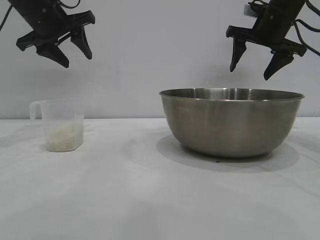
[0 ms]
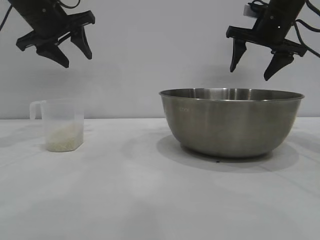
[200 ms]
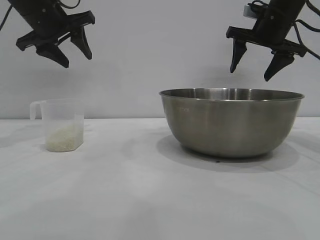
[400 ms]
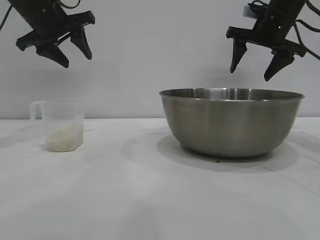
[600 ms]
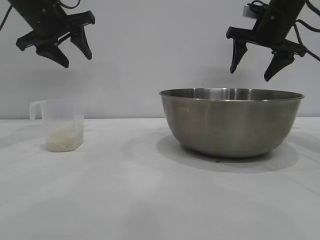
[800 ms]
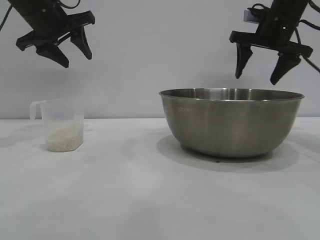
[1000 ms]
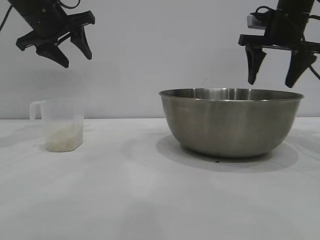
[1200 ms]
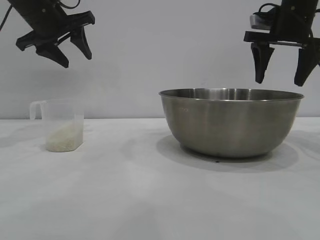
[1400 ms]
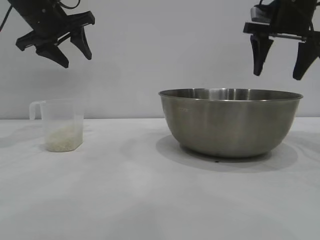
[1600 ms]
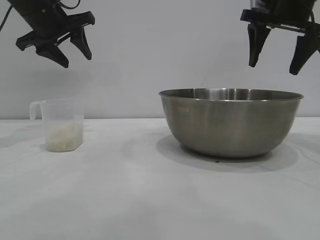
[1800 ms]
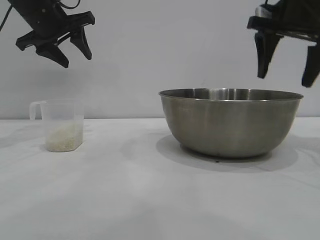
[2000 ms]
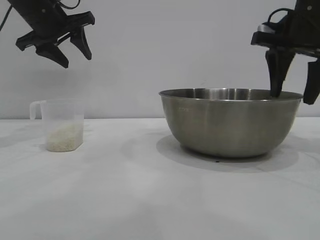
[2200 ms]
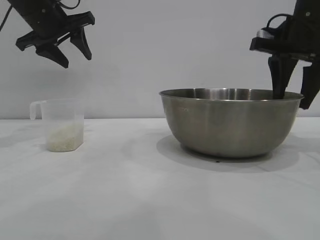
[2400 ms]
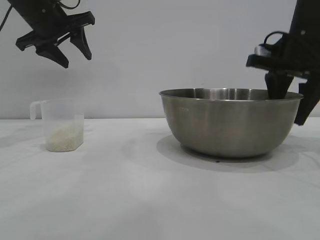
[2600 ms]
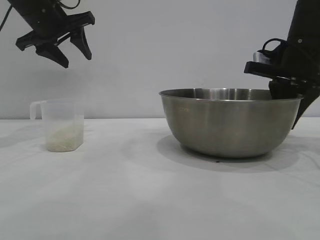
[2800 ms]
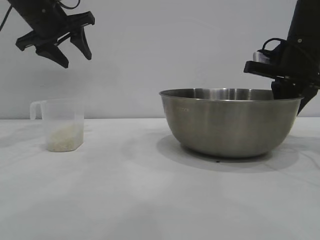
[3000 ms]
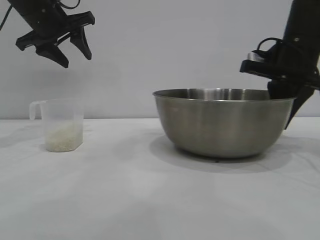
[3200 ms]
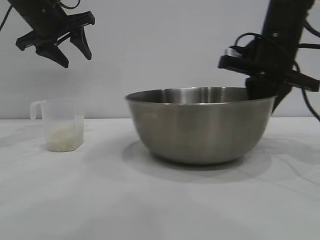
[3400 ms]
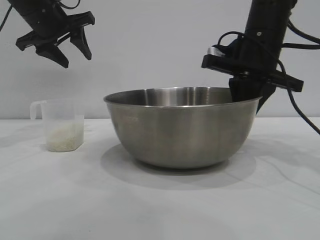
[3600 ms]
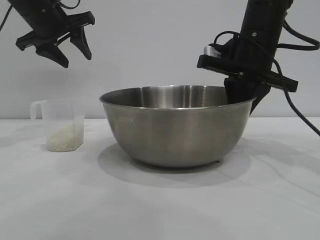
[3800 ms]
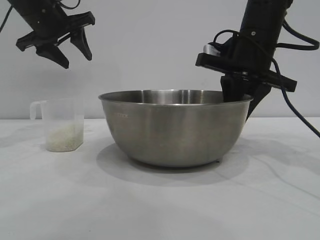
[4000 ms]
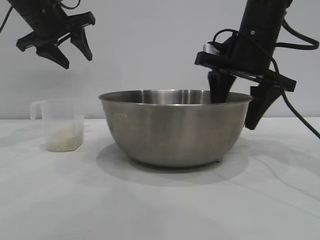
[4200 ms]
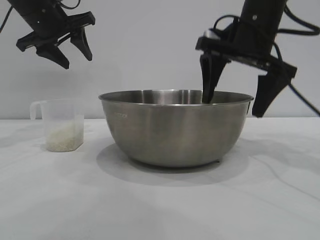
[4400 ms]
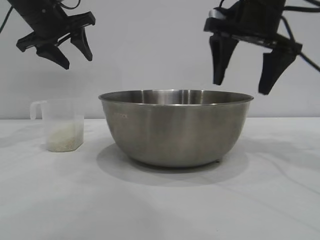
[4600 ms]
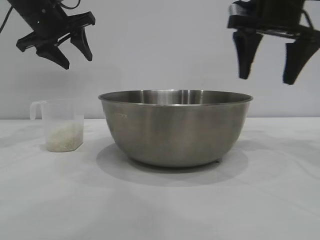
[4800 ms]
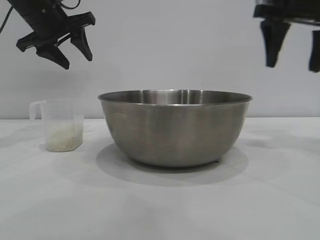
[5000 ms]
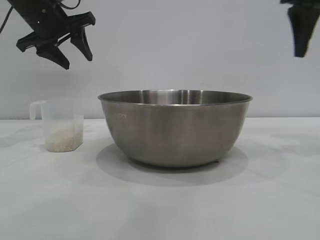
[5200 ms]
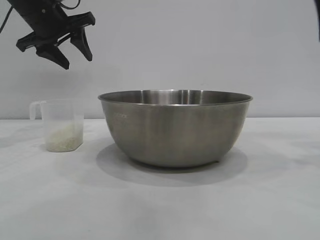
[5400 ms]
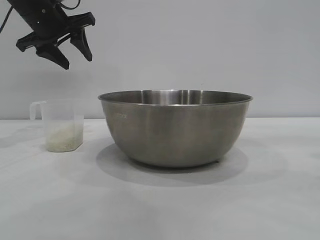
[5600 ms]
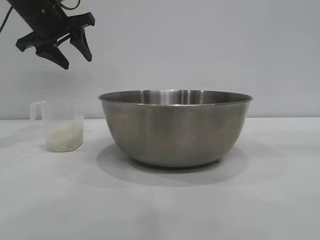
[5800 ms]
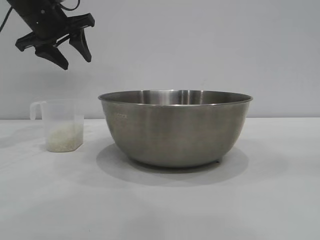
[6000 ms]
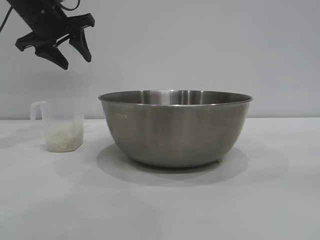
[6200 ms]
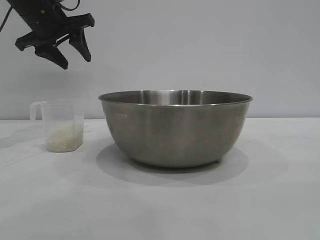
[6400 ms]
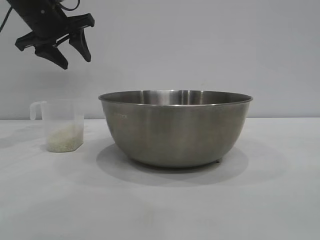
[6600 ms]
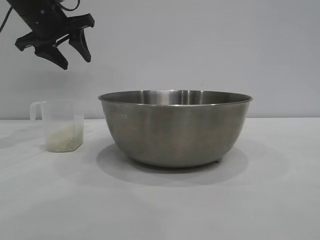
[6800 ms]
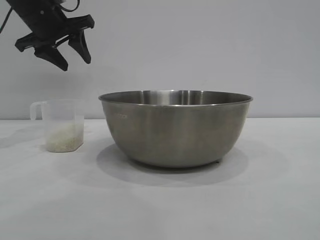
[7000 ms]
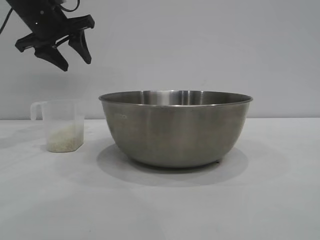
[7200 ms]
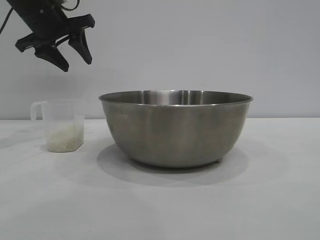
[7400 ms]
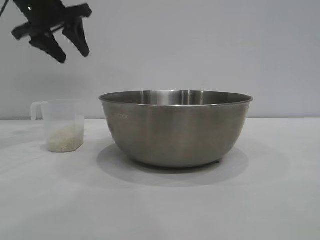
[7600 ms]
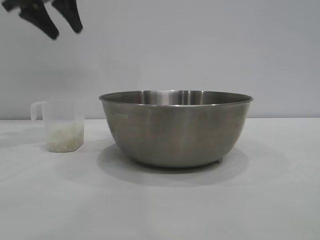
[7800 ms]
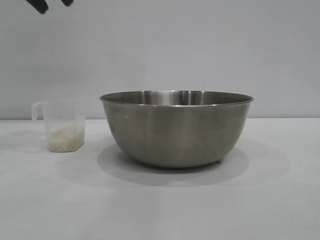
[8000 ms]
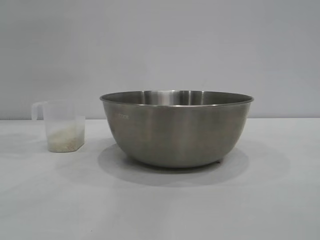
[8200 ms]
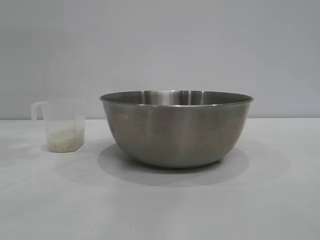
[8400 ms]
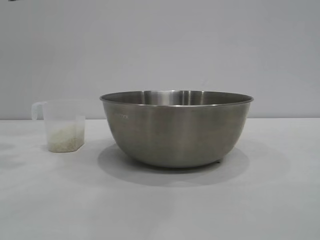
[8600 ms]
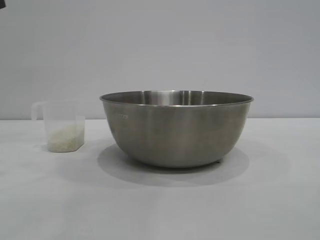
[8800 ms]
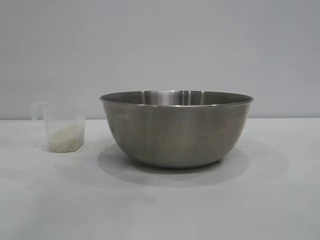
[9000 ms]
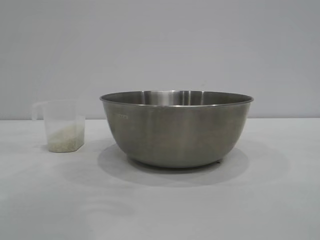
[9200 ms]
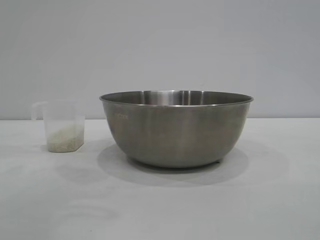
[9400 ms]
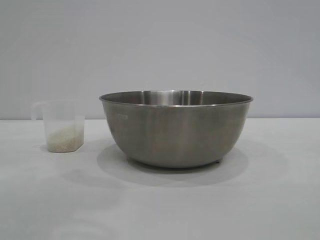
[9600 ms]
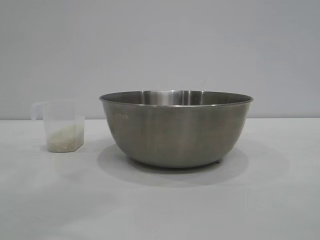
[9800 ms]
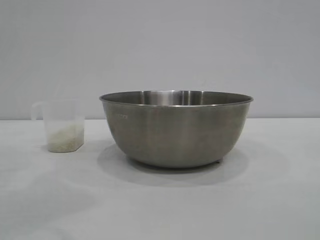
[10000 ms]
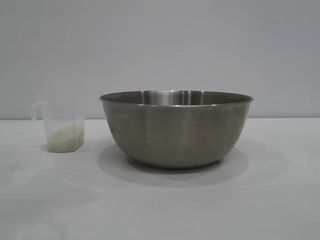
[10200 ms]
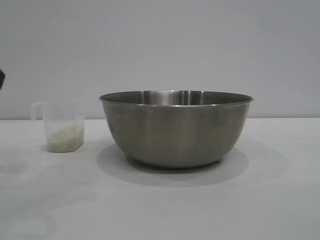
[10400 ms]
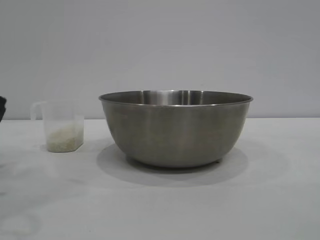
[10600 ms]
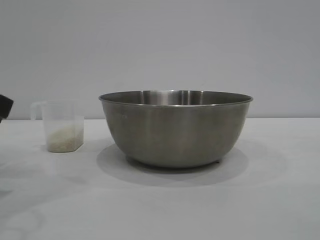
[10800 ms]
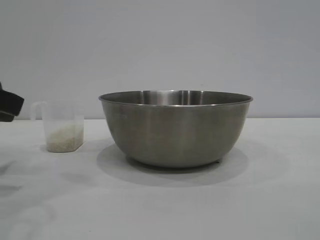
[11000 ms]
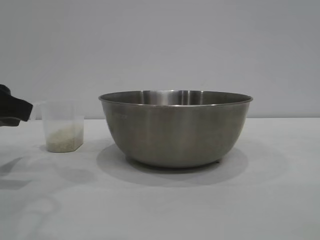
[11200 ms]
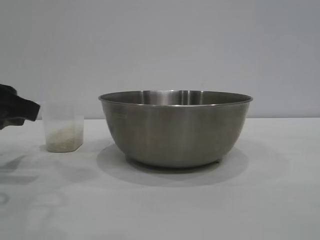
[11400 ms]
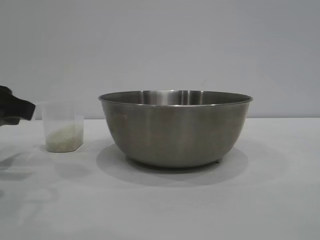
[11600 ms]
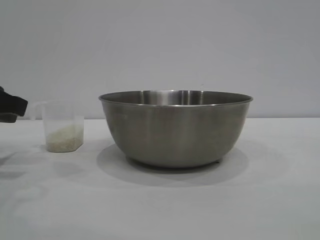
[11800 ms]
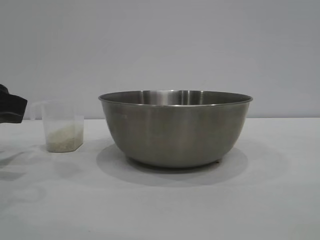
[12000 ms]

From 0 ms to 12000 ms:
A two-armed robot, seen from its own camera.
Task of the whole recording: the right gripper grasp the rice container and place it in the center of the table, the left gripper grasp the rice scoop and pour the rice into the rice container.
Step, from 0 ms to 4400 ms: Move the bowl to the center of view with the right gripper.

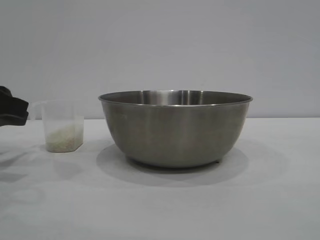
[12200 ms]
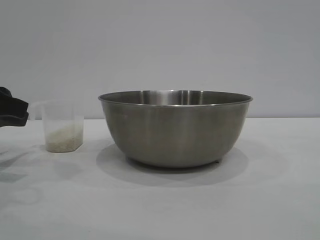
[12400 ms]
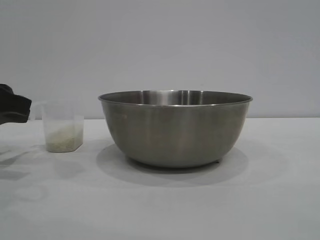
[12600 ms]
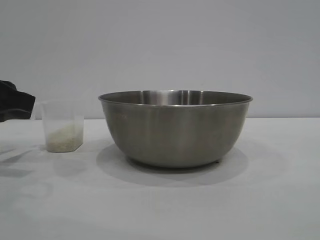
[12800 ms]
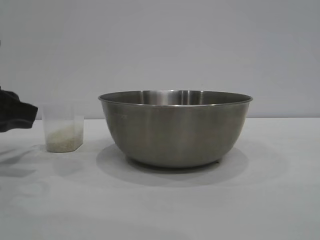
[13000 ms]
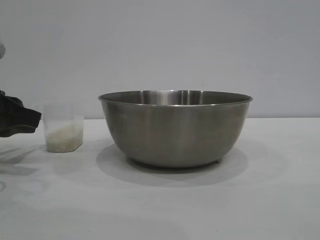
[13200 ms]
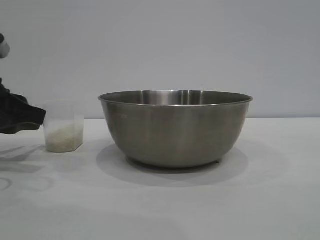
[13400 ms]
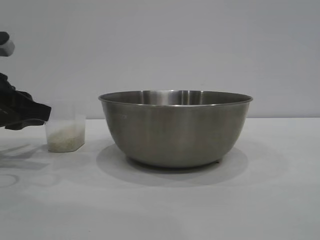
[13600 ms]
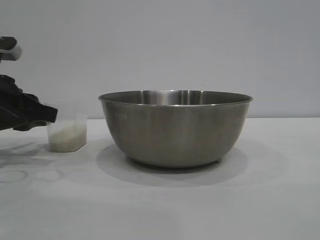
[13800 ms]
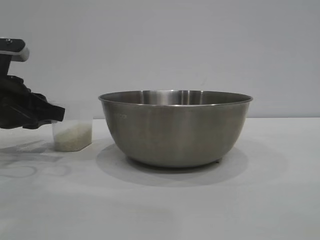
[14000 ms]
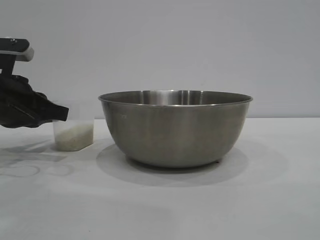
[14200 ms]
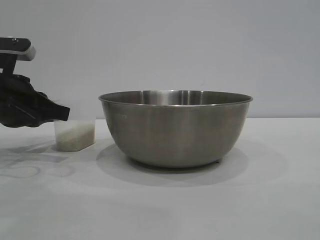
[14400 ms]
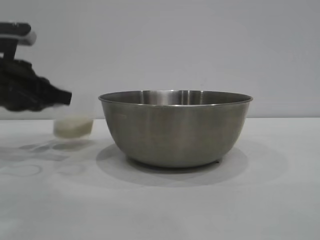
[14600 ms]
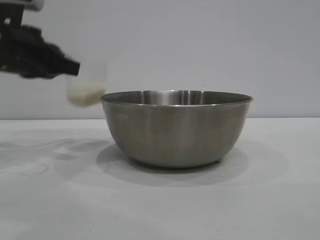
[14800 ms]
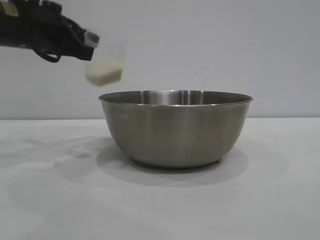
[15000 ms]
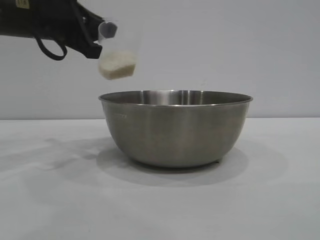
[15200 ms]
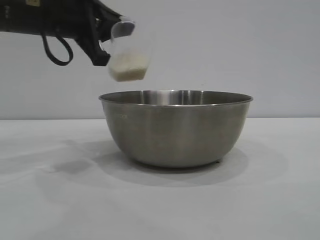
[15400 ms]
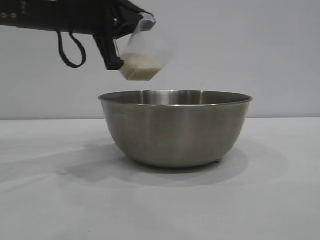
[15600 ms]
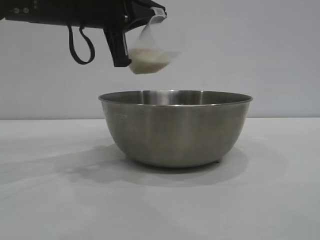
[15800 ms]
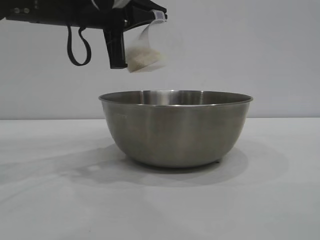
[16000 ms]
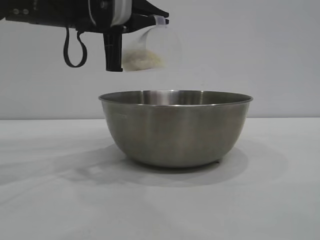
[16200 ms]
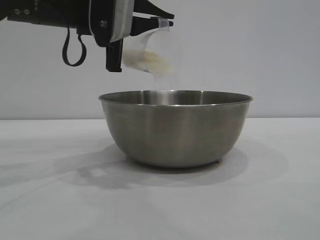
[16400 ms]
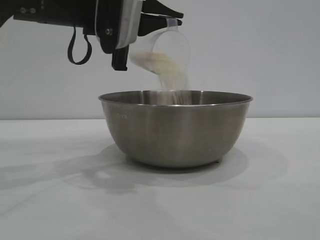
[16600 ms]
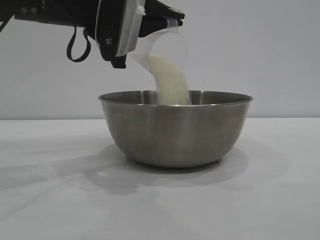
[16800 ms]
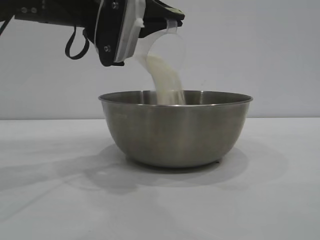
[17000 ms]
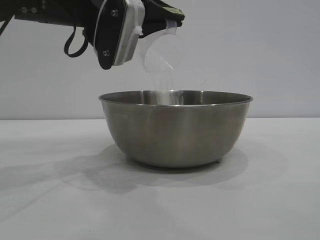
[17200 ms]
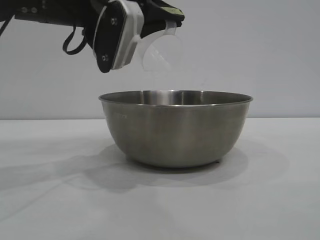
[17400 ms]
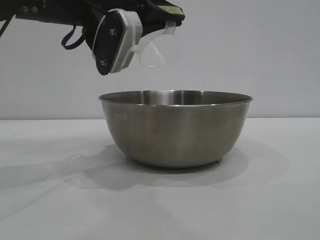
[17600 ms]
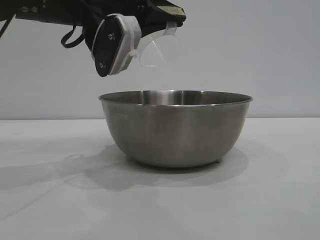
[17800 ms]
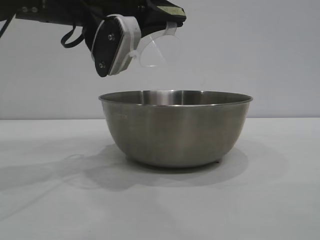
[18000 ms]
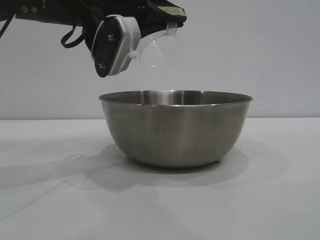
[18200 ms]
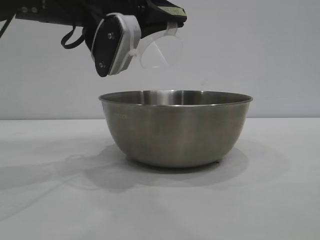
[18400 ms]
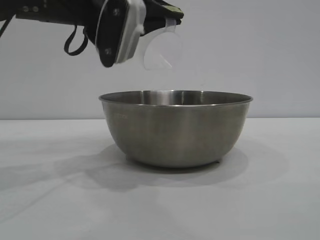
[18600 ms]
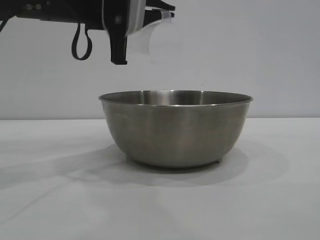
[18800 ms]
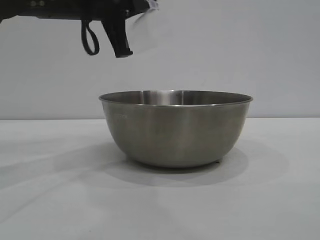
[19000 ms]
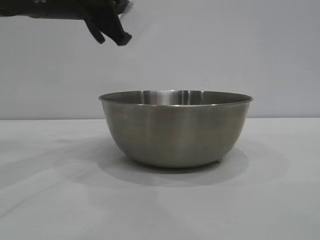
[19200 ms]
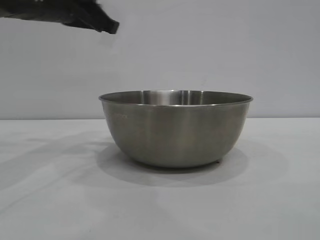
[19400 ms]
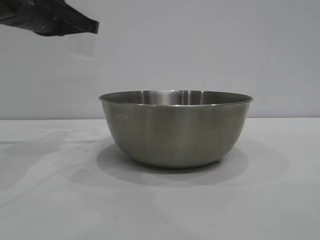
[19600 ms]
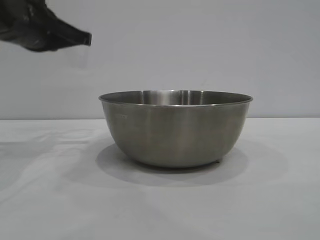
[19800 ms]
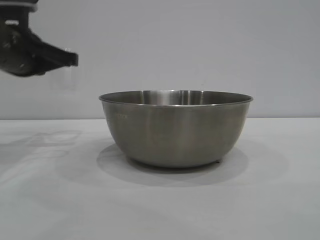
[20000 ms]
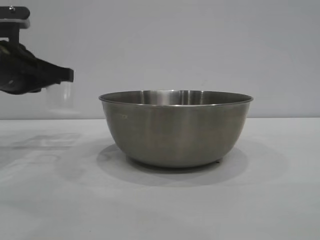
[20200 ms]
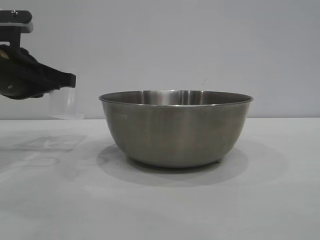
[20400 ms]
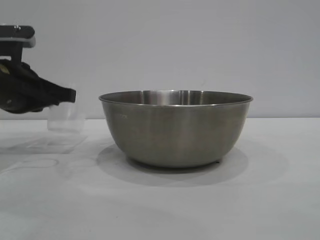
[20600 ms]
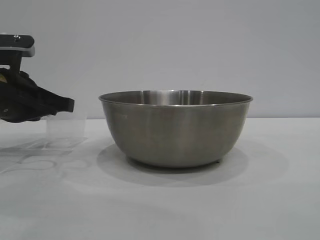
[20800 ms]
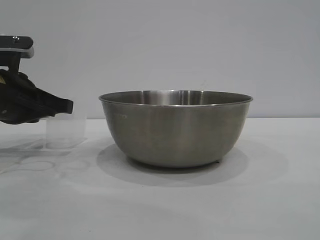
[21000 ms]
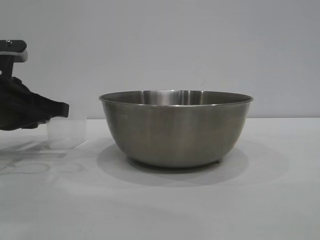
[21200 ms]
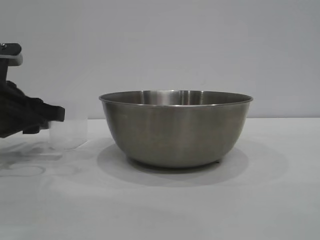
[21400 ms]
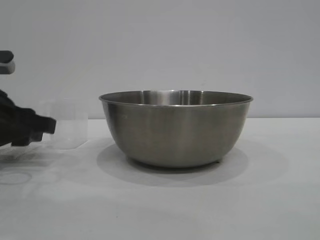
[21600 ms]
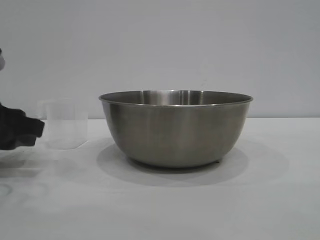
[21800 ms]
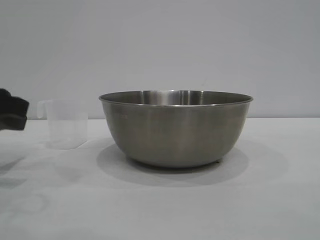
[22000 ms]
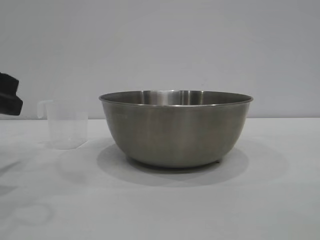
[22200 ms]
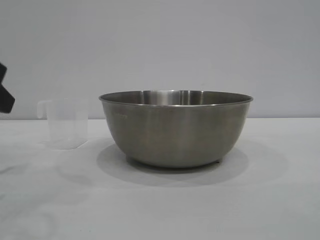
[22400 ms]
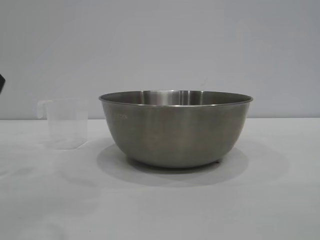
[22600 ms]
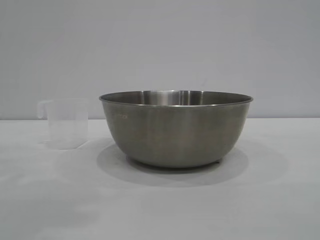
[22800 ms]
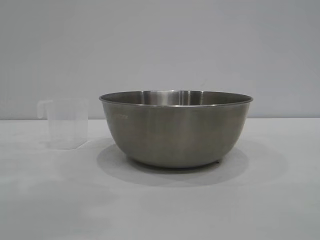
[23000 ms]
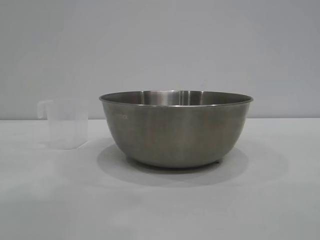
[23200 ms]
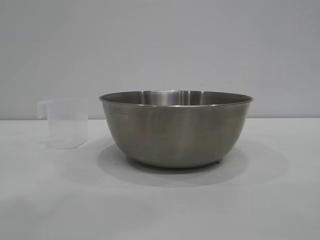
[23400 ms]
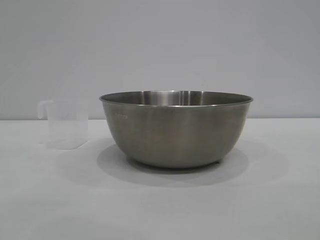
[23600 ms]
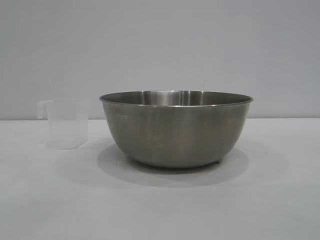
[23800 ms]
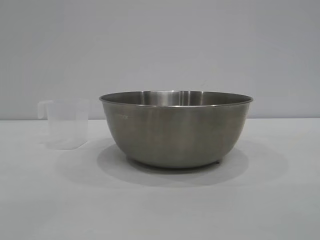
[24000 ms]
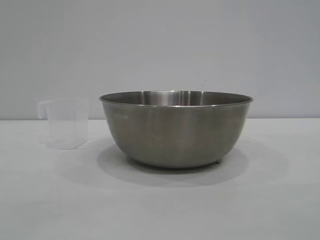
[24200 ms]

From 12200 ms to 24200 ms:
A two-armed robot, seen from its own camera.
Task of the whole recording: the right gripper grasp the rice container and place it in the center of the table, the left gripper grasp the rice scoop and pour the rice into the rice container.
Step, from 12200 ms to 14600 ms: Pick up the cup with rice in it with the left gripper.
Step, from 14800 ms to 19200 ms: Pour the rice from the cup into the bowl with the left gripper.
Step, from 19400 ms to 22000 ms: Place the cup on the table with the left gripper.
